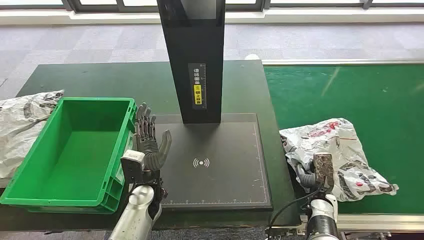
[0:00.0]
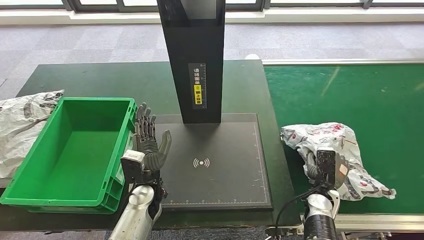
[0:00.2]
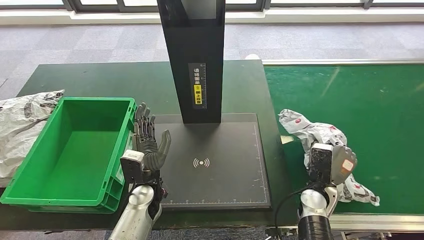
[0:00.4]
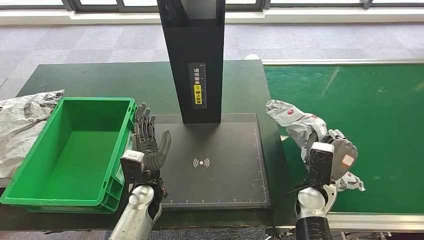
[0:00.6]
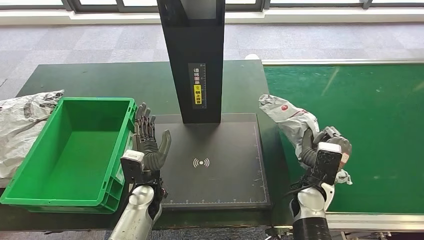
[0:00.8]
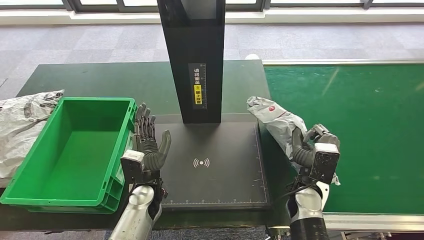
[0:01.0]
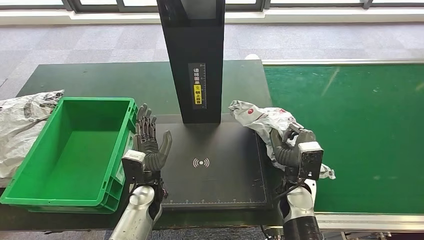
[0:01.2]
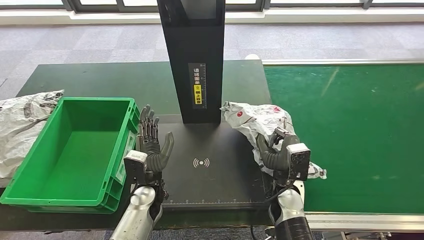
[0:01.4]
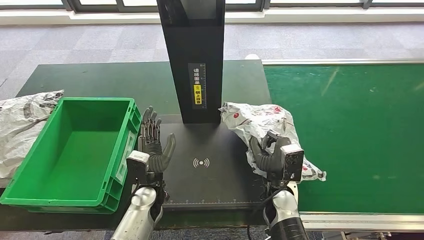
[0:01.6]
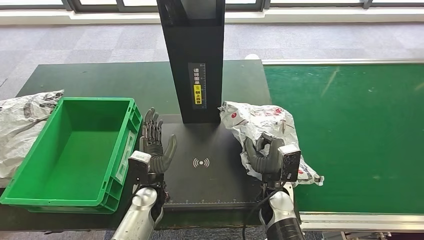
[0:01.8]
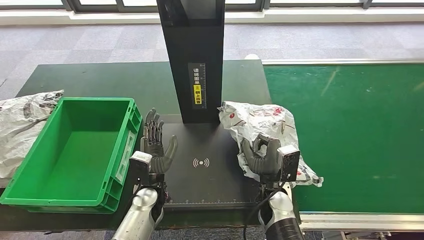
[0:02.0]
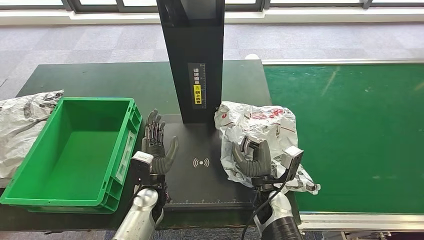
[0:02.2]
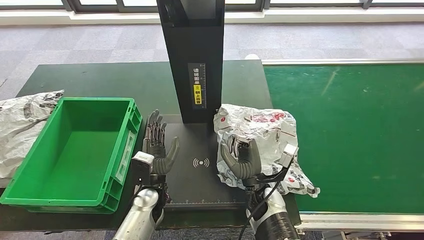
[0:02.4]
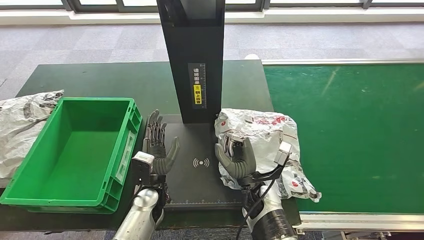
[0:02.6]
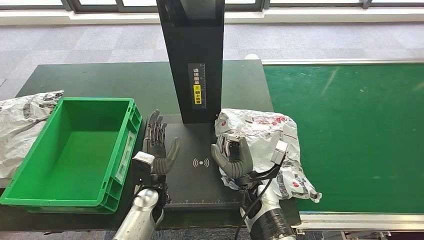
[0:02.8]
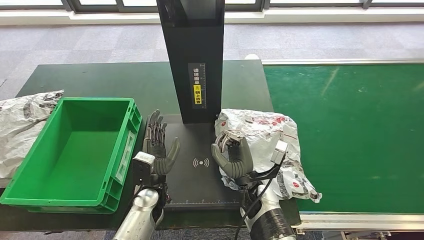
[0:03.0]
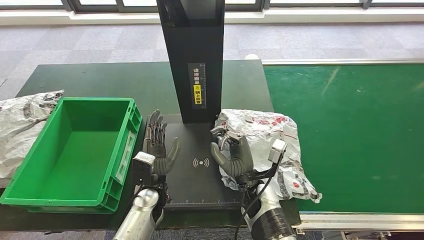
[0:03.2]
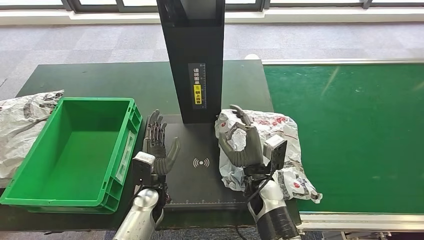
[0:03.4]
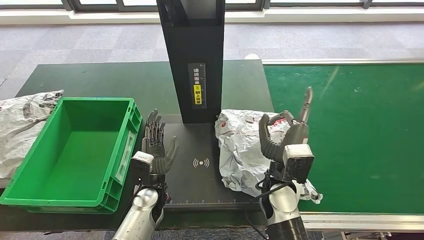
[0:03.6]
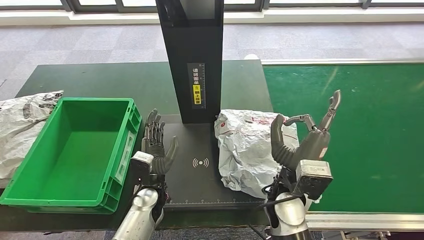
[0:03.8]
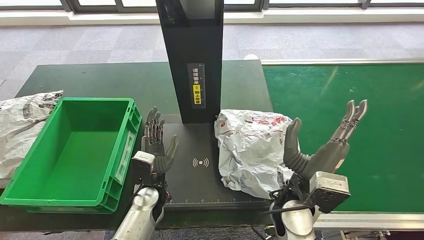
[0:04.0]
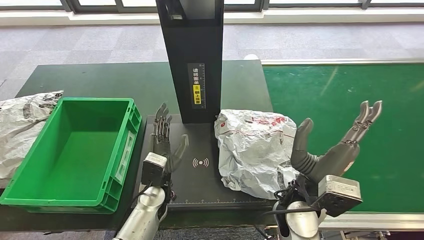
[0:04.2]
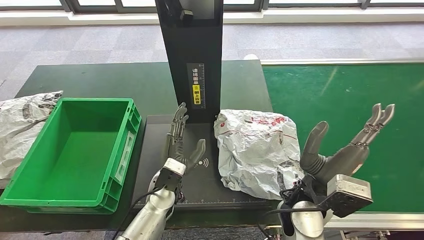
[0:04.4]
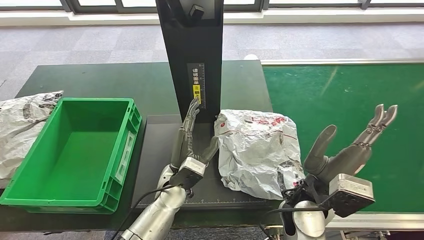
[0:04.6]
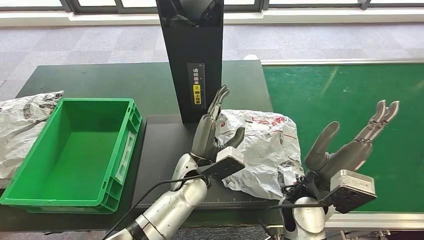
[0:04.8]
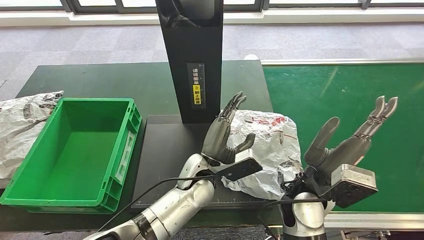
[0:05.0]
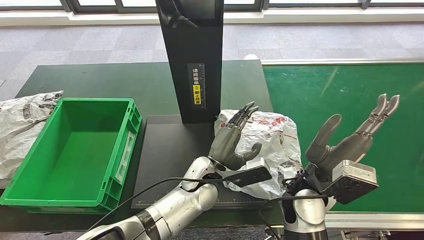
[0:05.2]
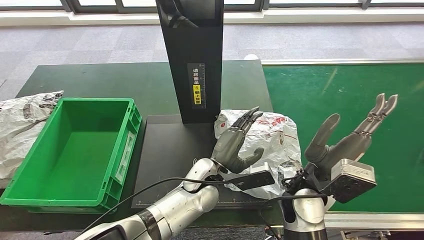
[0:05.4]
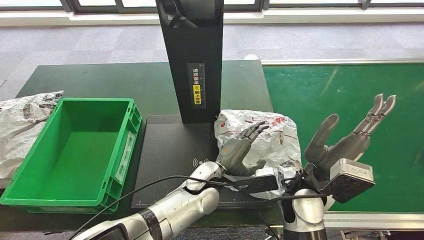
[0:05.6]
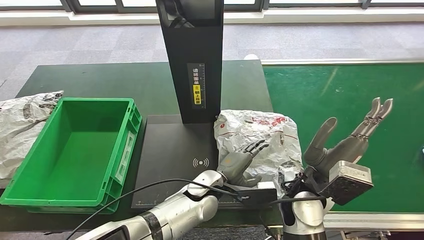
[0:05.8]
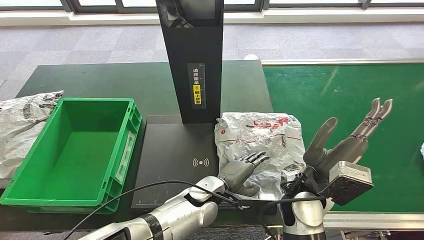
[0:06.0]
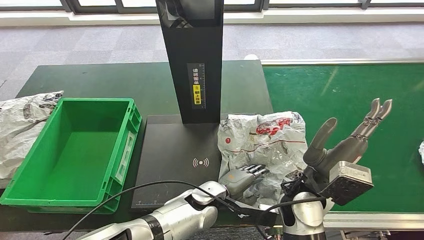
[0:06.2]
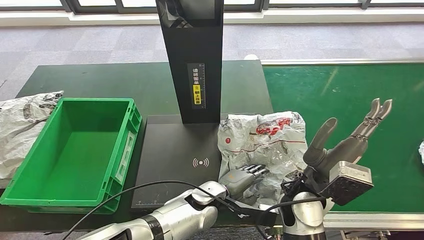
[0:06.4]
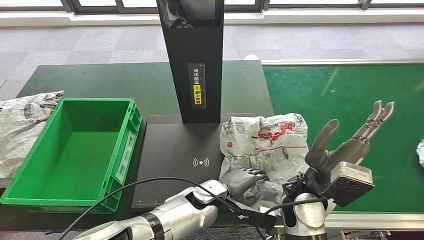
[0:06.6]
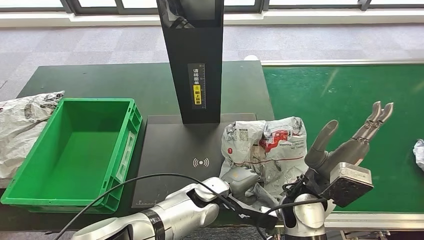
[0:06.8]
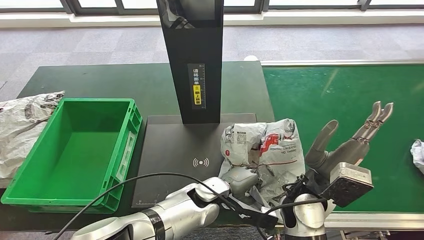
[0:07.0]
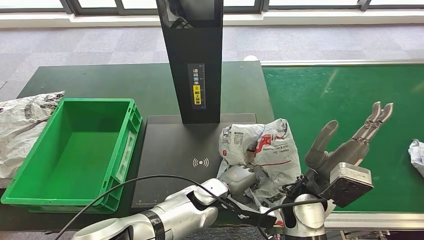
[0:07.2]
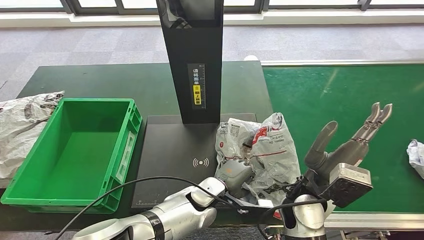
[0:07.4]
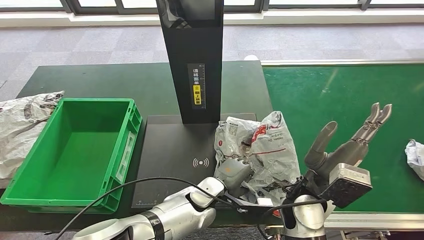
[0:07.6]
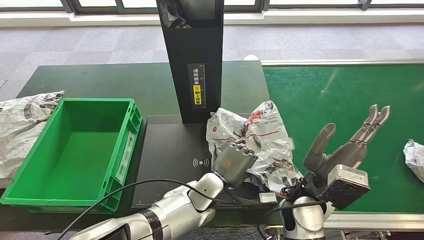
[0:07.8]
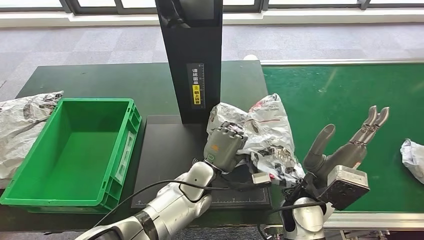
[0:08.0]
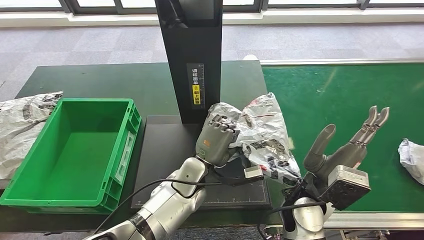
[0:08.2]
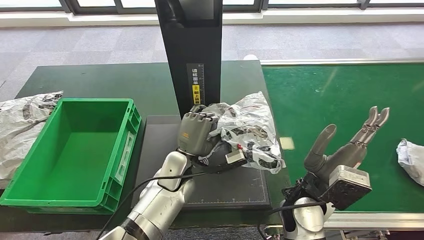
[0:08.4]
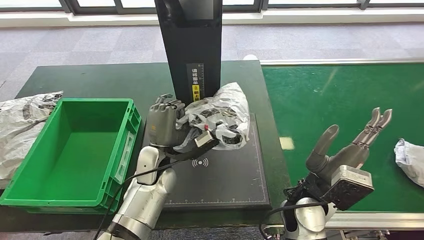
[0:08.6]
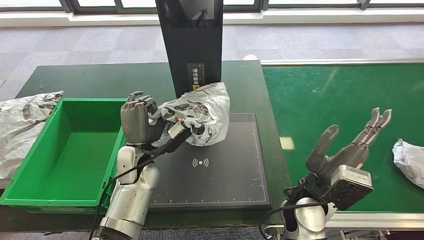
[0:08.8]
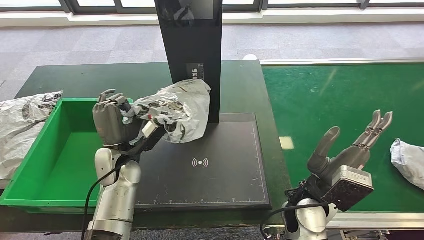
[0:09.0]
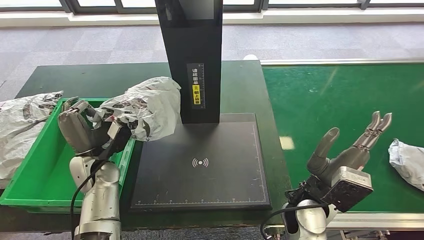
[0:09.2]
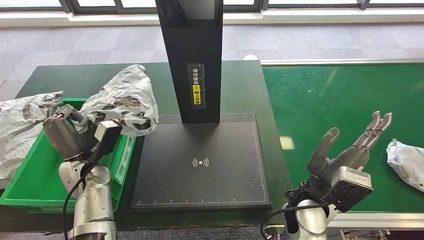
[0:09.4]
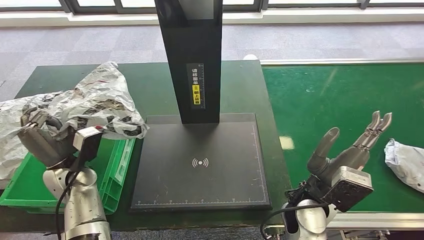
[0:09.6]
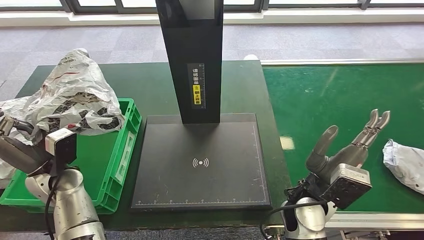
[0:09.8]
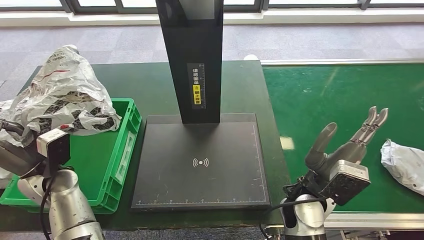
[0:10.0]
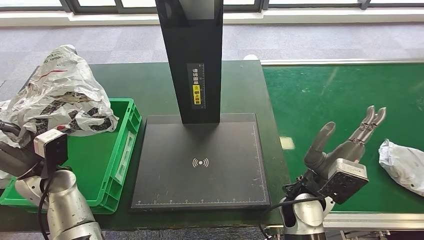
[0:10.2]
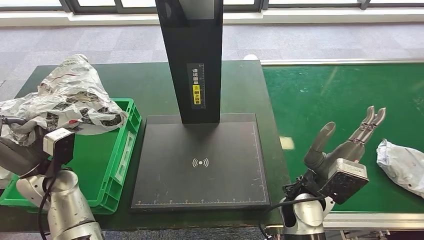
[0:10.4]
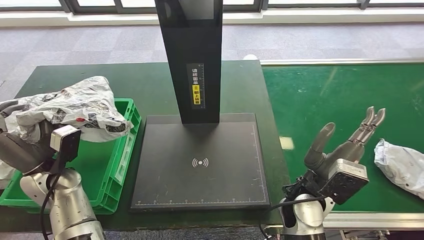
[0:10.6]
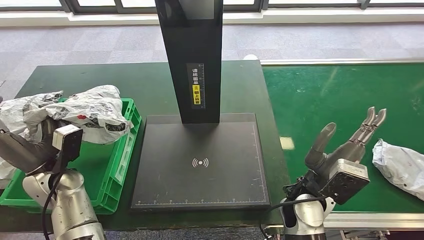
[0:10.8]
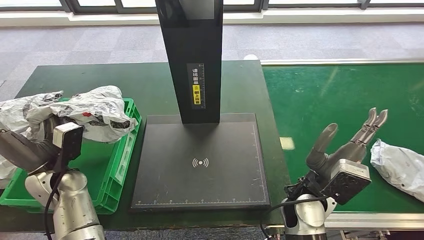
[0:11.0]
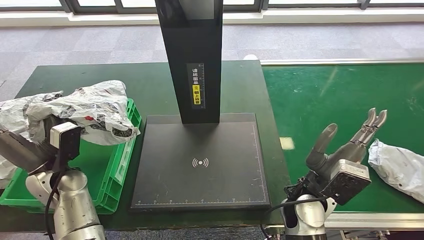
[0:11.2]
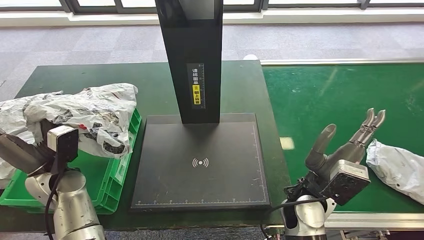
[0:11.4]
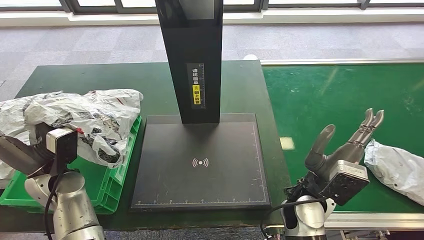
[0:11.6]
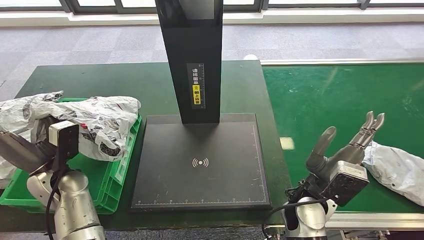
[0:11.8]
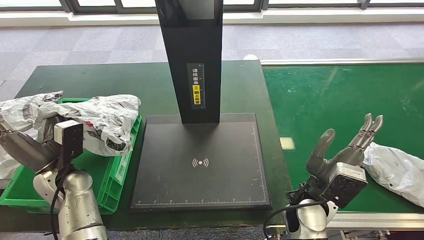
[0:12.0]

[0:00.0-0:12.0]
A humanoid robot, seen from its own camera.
Step, 0:00.0 to 0:01.4: Take the parcel off the conveyor belt.
Step, 0:01.6 to 0:05.4: Place the parcel onto the inbound machine.
Step, 0:05.8 to 0:08.6: Pick up the parcel from the inbound machine.
0:01.6 to 0:03.0: The right hand heads to the left, covering roughly 5 cm.
0:03.0 to 0:04.4: The right hand moves upward and to the right, roughly 15 cm.
0:04.4 to 0:06.0: The left hand heads to the right, covering roughly 10 cm.
0:06.0 to 0:07.6: The hands move only a little.
0:10.4 to 0:12.0: The hands stay close to where they were, moving slightly.

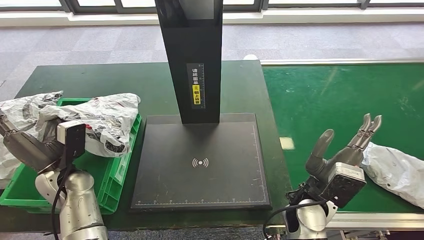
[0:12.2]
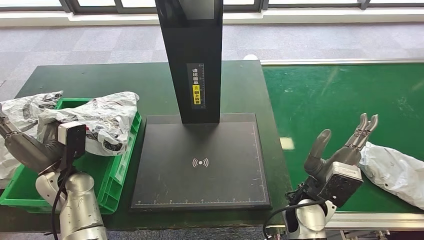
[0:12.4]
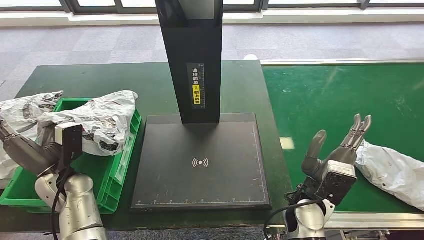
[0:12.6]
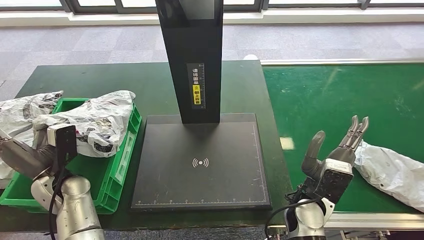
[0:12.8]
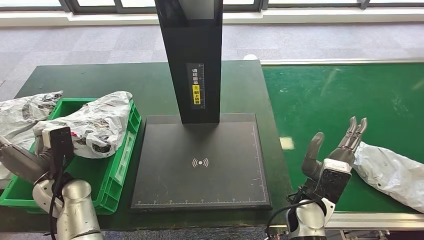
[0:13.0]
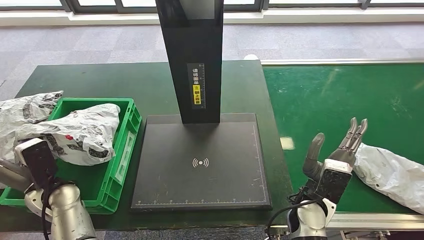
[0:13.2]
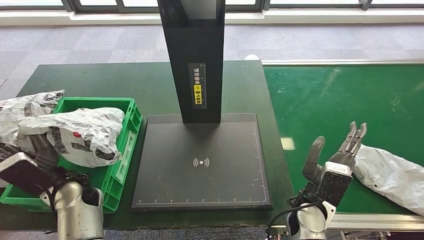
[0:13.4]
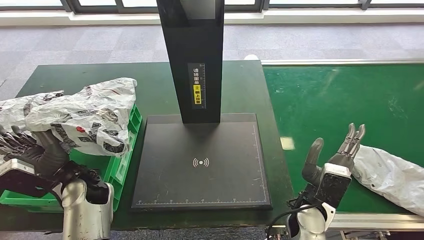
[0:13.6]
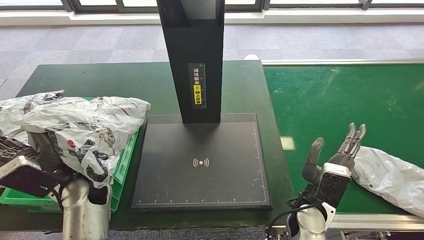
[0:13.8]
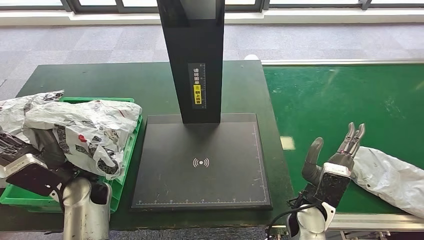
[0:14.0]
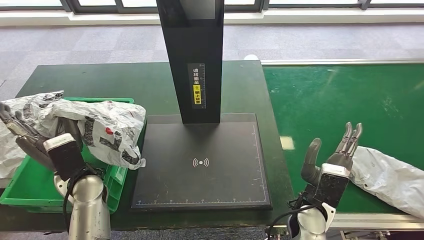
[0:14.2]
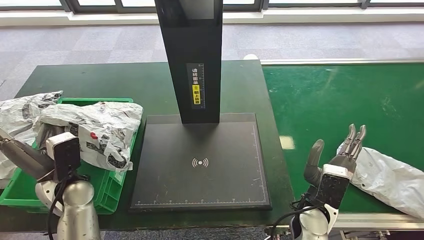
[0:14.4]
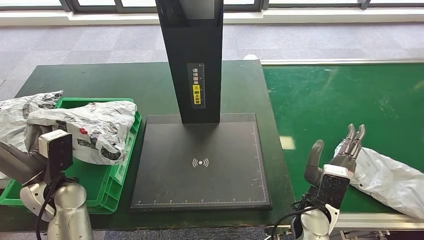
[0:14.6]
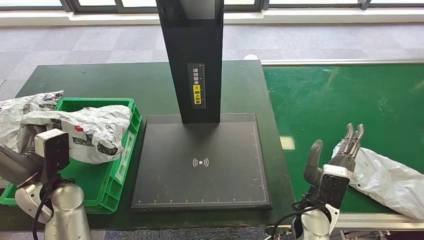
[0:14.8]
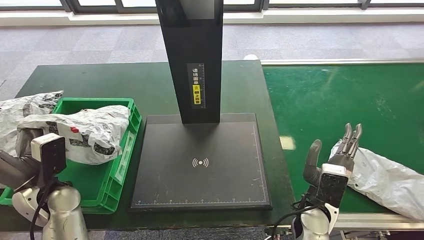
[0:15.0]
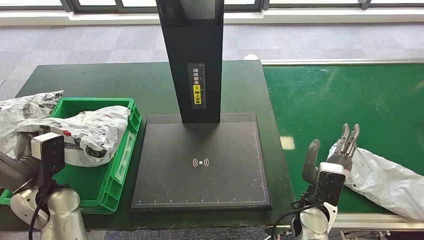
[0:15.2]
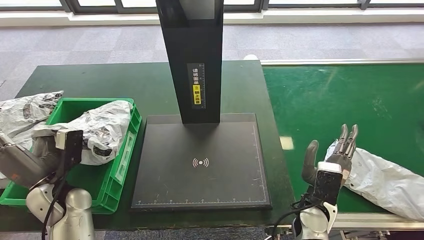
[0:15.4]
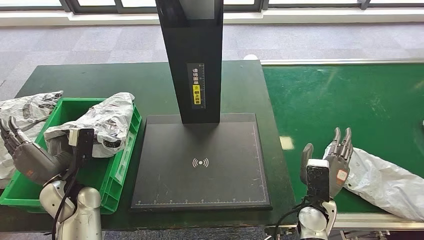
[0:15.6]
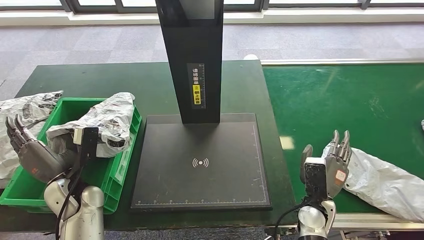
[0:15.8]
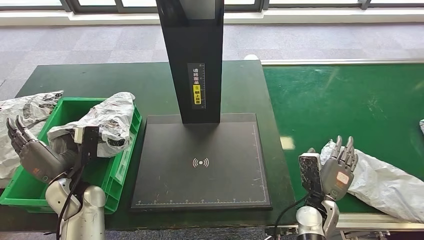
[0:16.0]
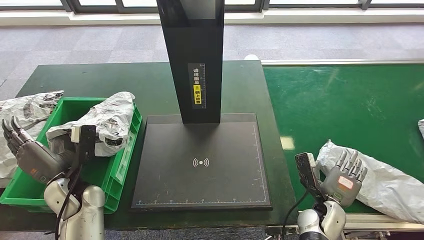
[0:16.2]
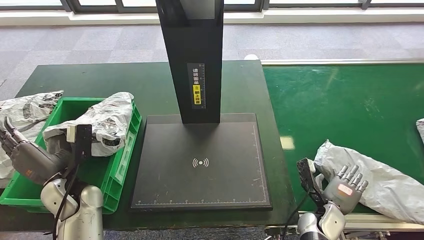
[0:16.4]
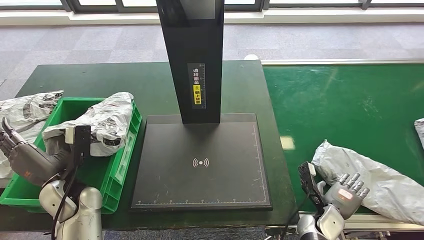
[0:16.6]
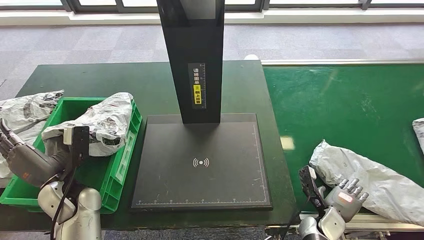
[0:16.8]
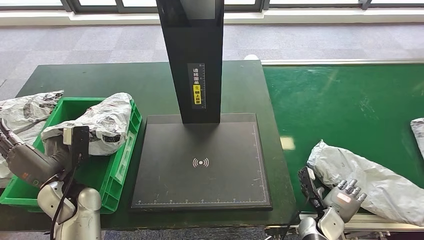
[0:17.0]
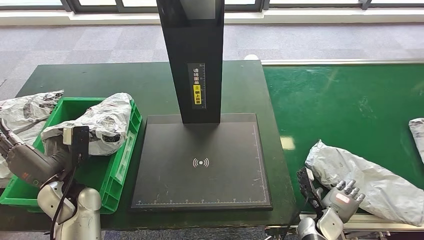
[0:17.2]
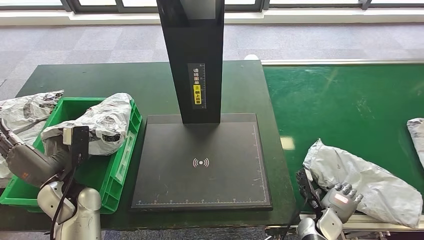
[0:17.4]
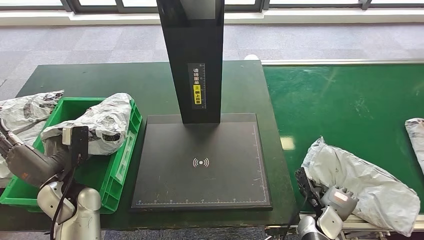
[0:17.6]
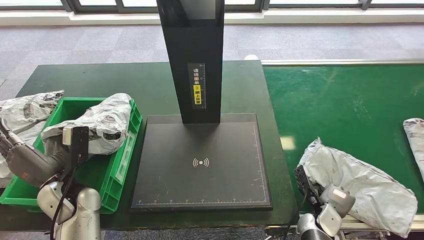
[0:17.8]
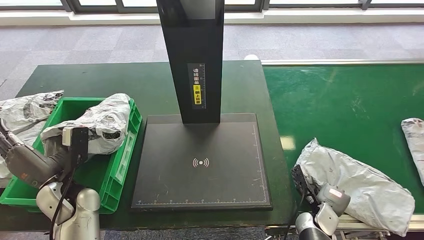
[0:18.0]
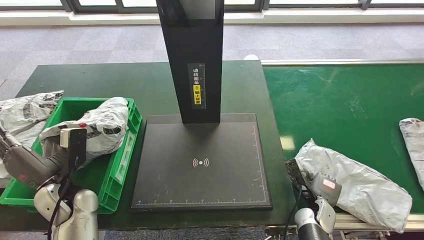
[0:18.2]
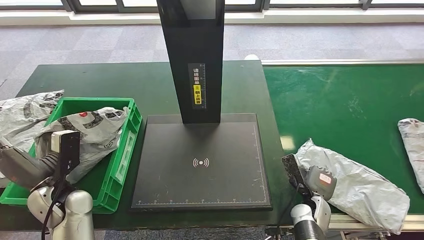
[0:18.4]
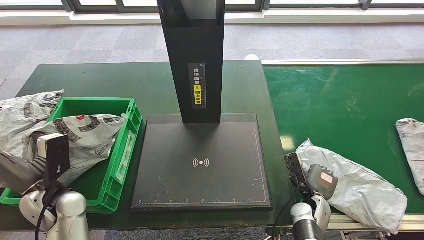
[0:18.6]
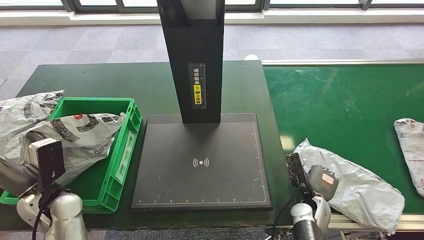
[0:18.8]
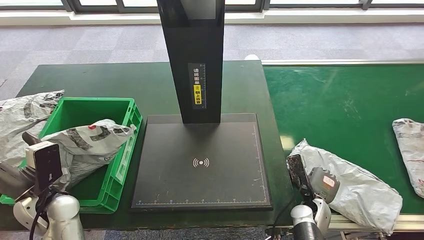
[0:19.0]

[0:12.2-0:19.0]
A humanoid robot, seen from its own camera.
0:13.6 to 0:15.0: The left hand shifts approximately 5 cm to the left.
0:15.0 to 0:16.2: The left hand shifts by about 5 cm; the right hand moves downward, about 5 cm.
0:16.2 to 0:17.6: The right hand changes place by roughly 5 cm.
